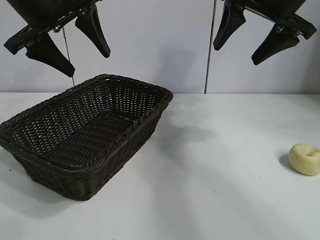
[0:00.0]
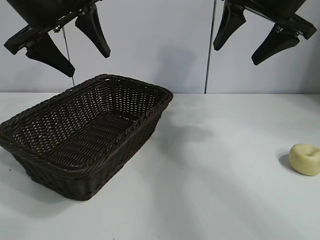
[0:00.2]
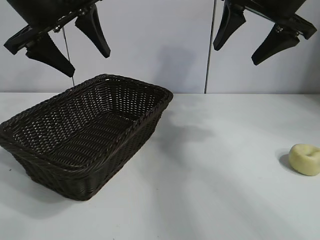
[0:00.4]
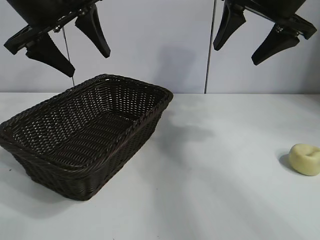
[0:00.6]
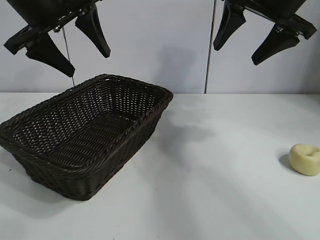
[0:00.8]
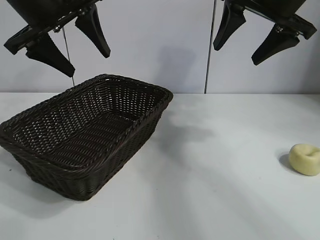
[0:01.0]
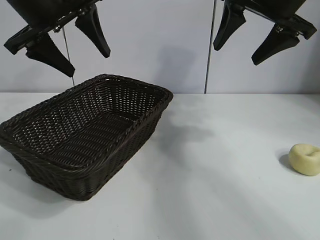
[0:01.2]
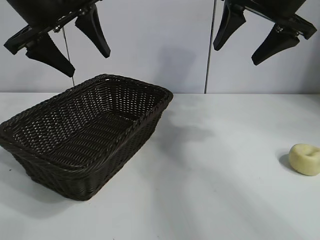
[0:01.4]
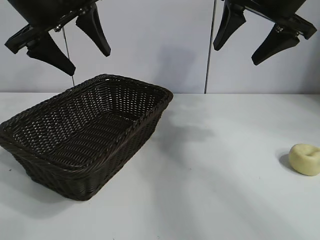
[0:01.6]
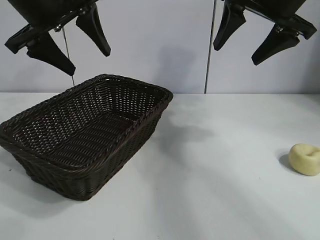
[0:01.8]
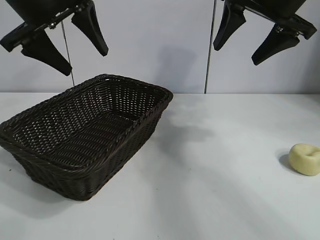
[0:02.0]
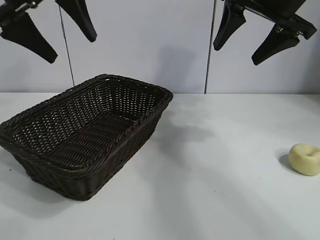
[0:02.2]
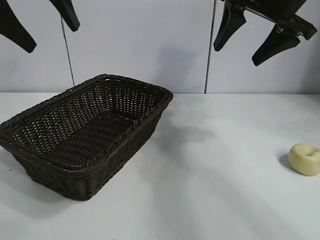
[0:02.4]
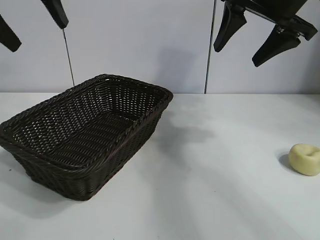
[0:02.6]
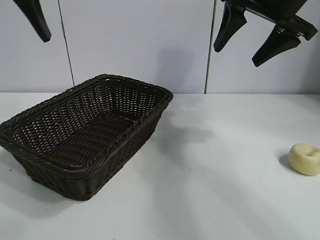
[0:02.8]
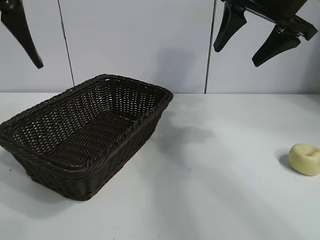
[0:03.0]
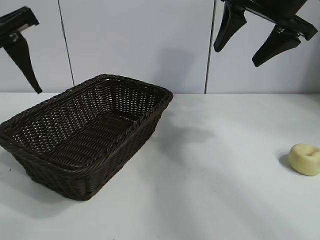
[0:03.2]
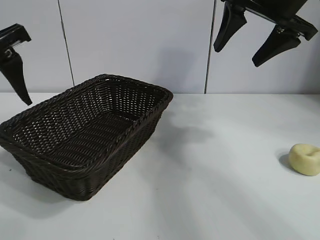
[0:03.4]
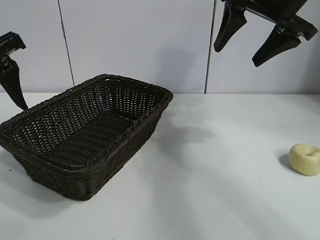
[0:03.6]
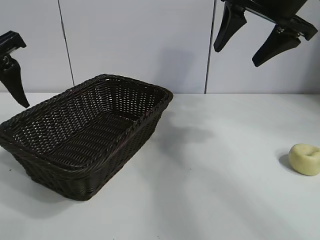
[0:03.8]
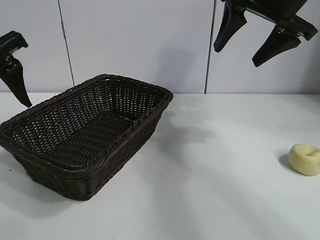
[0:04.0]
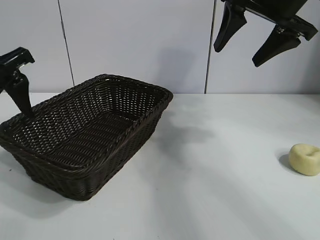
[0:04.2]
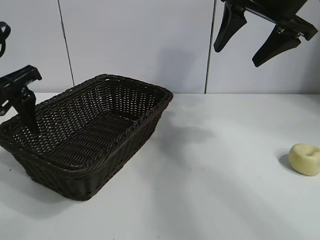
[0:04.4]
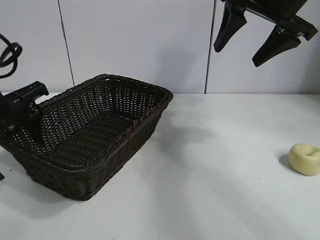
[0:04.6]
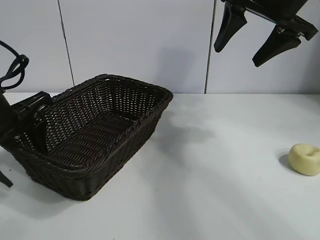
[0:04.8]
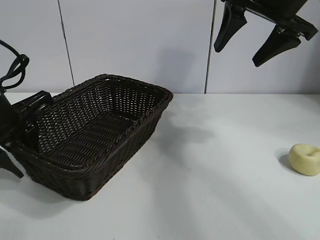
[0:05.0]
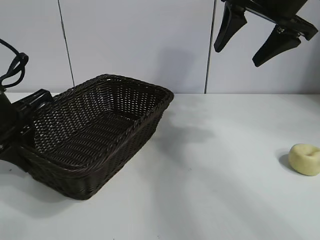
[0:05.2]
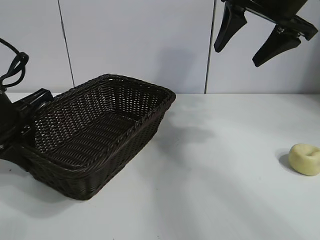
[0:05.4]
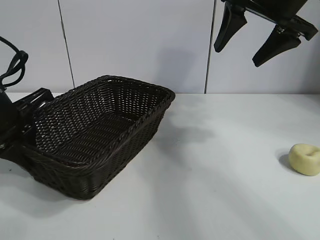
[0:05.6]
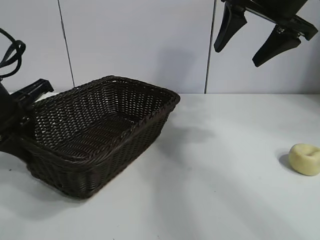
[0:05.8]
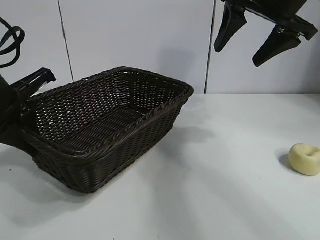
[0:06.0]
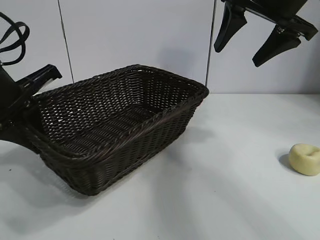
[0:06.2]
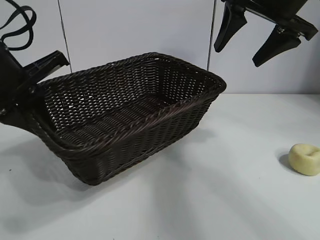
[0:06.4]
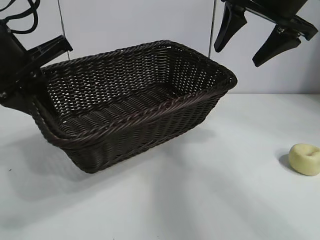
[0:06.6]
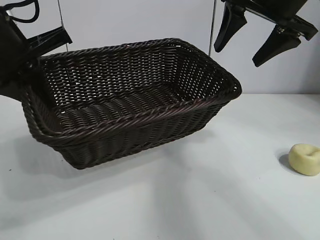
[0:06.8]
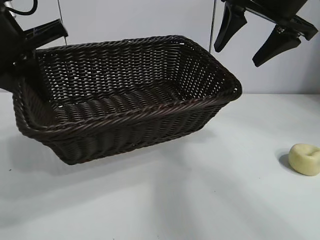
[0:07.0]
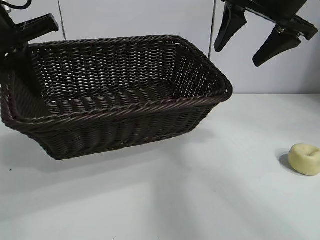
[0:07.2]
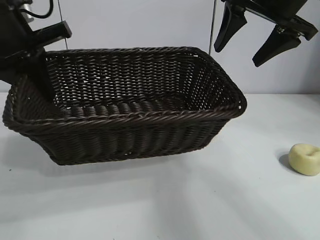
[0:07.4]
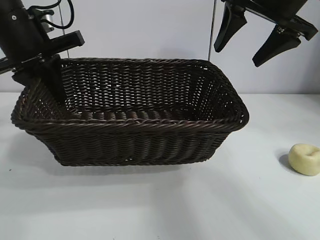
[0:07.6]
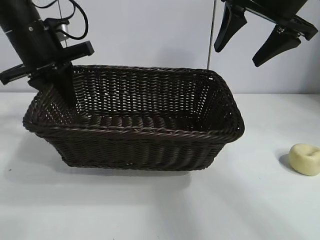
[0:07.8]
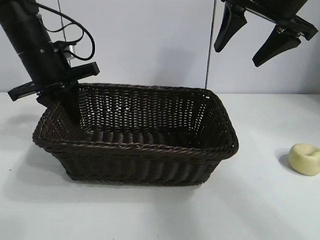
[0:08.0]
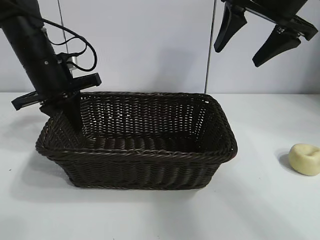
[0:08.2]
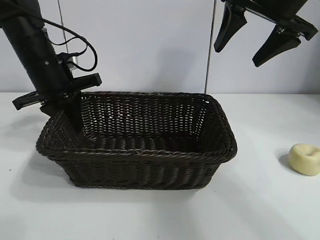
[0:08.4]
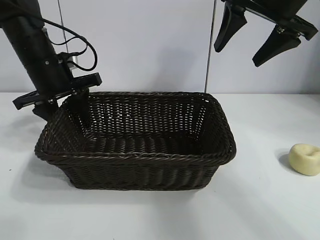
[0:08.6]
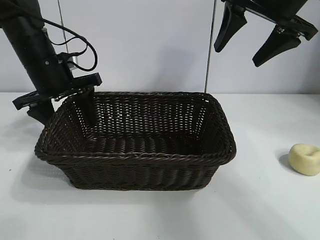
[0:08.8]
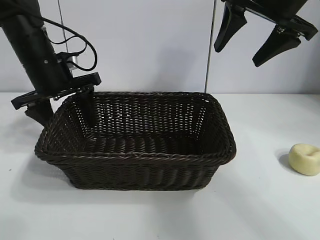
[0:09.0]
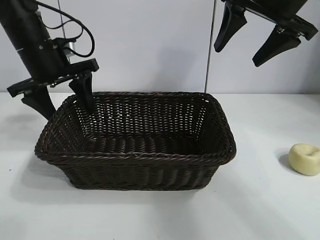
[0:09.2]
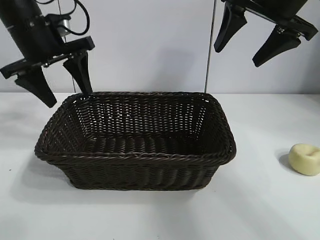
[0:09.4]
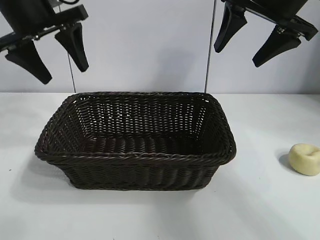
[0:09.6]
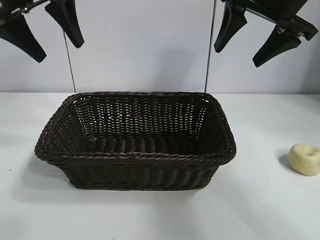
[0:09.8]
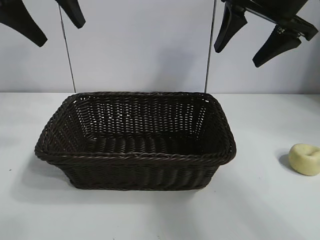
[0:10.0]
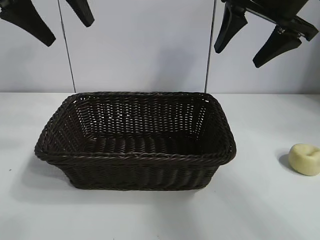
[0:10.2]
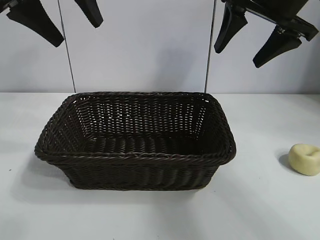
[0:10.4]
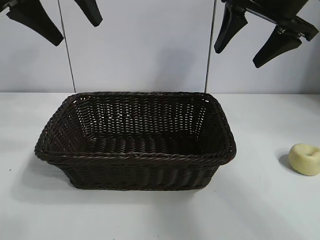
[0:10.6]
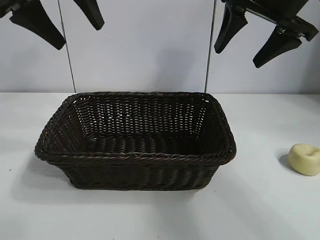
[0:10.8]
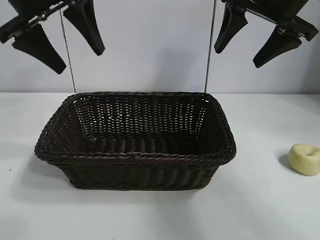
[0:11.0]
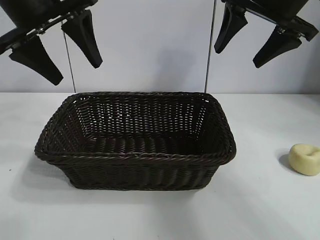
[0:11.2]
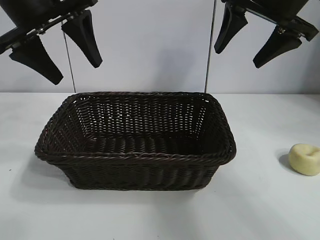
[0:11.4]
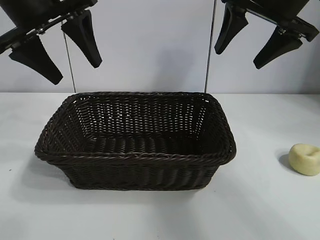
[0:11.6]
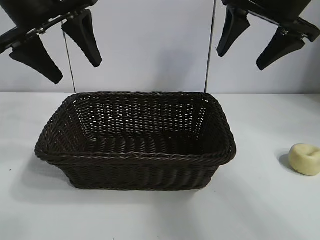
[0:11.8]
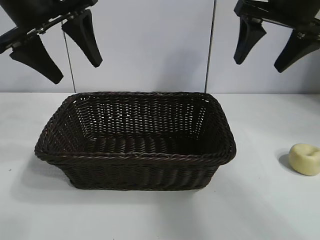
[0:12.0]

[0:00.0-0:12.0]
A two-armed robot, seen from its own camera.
Task of the whole recording: pick up the egg yolk pastry and put it into the basket.
Step, 0:01.6 to 0:05.2: Grasp the basket with left gripper.
Step, 0:05.4 to 0:08.8: Place the basket in the center of view with left gripper.

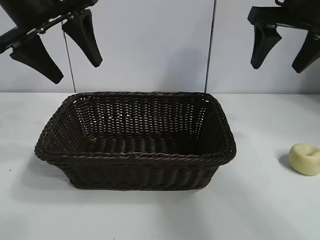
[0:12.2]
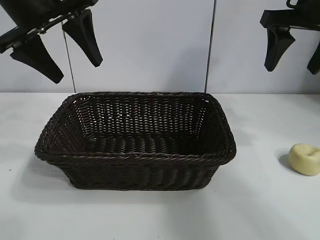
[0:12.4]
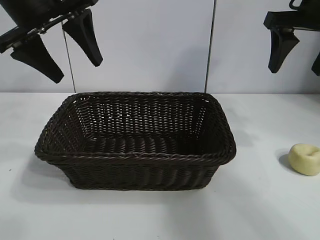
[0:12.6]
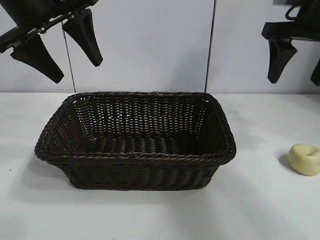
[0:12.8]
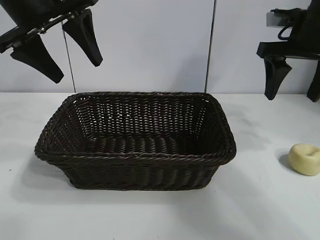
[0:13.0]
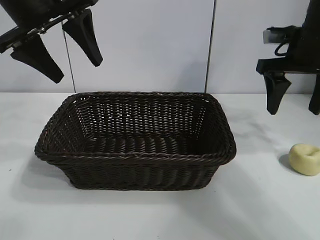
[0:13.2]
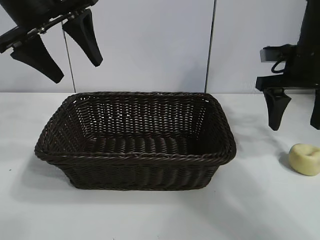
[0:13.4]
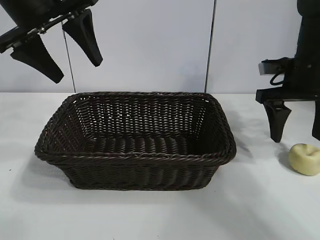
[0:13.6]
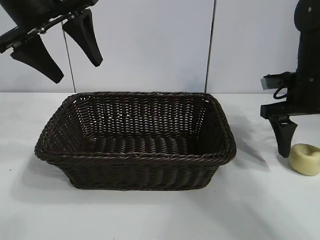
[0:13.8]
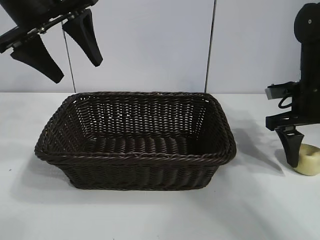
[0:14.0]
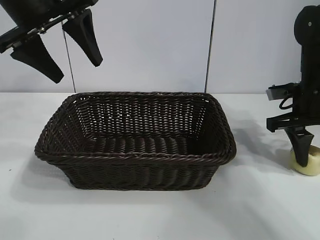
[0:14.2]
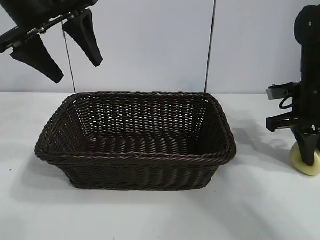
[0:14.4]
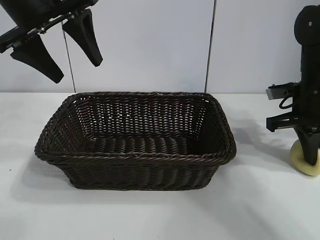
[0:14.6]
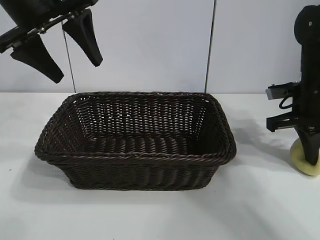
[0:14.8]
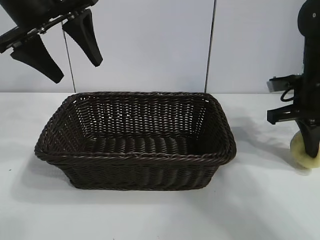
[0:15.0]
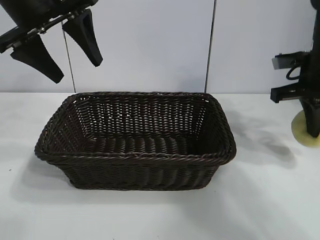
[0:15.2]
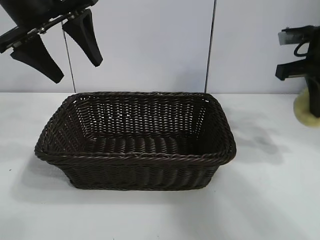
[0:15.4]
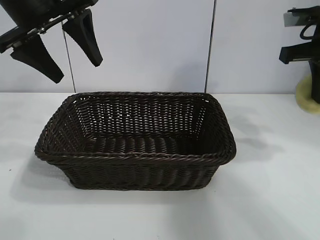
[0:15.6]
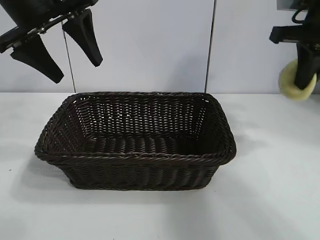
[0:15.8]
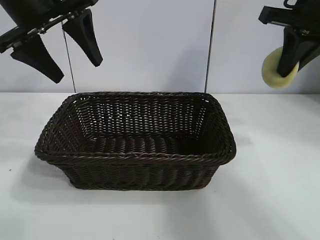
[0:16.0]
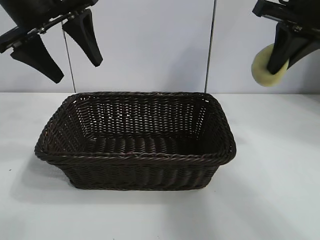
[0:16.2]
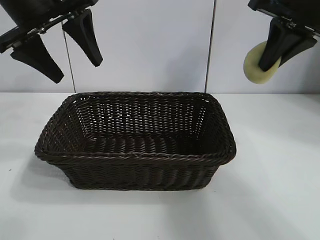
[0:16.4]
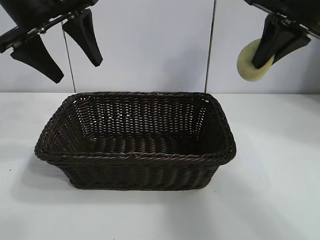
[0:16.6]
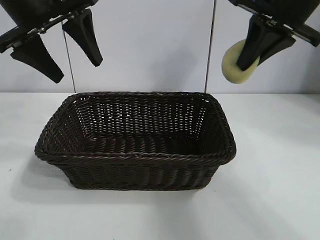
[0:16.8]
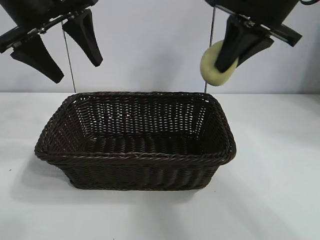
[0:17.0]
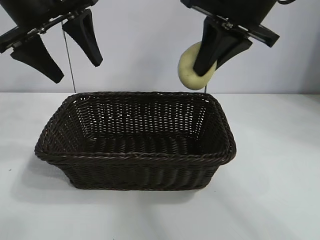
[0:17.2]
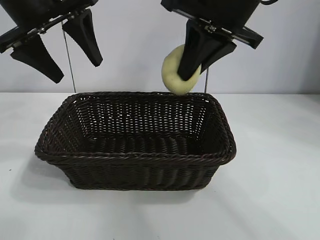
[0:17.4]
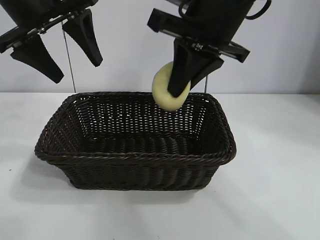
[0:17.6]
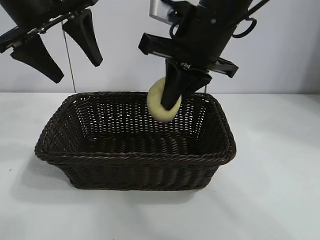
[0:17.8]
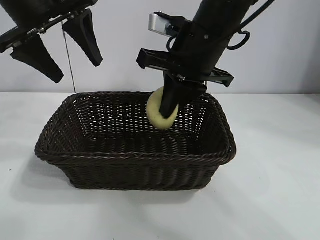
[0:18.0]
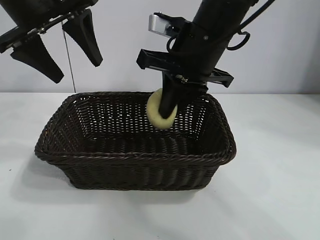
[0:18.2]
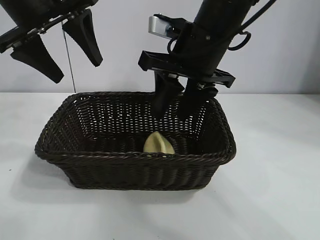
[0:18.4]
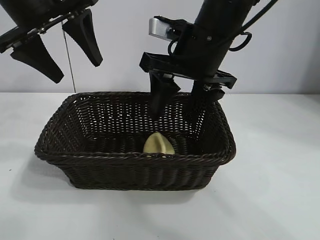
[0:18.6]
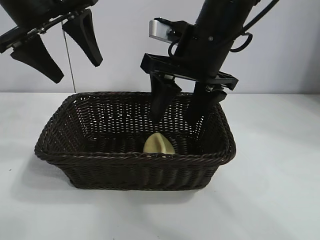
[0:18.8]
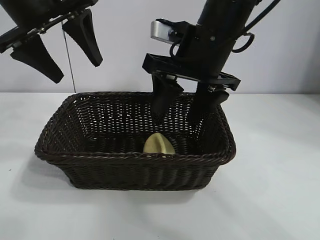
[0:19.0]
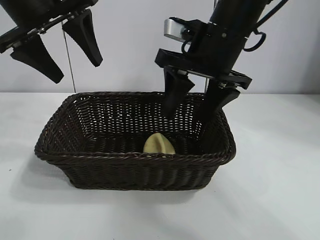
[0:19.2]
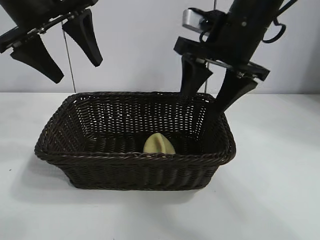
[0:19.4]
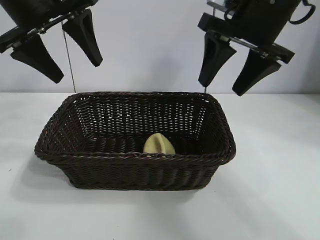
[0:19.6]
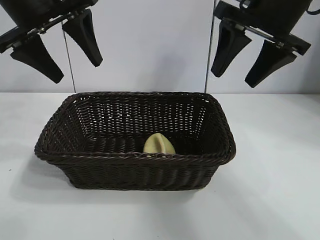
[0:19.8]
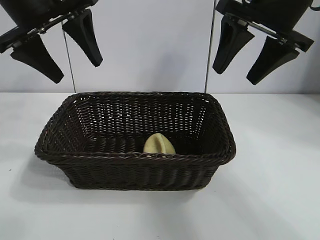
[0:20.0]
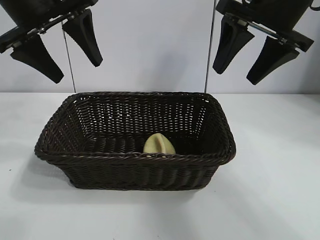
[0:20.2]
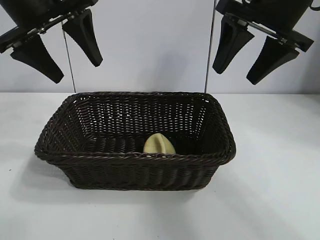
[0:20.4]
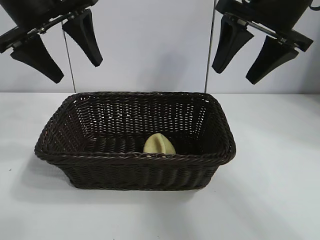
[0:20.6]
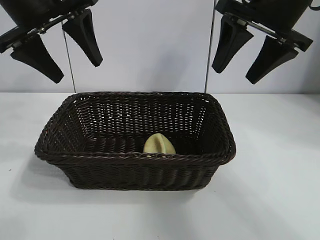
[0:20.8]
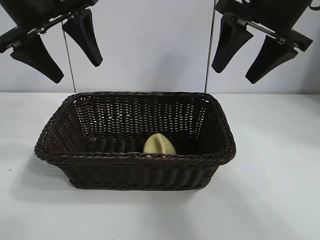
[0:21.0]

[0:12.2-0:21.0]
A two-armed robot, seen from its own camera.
Task of the whole recording: pick up the egg yolk pastry and put it into the basket.
Step, 0:12.2 to 0:14.8: Grasp egg yolk pastry with right gripper.
Step, 0:15.0 to 0:18.6: Place the egg yolk pastry in the basket with right gripper.

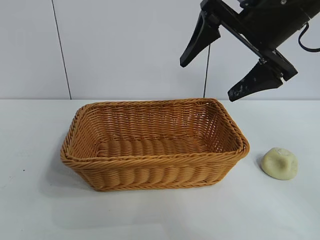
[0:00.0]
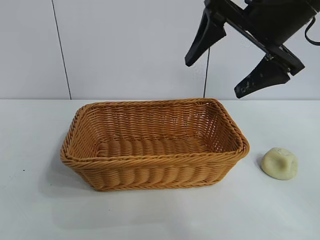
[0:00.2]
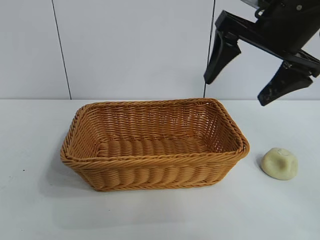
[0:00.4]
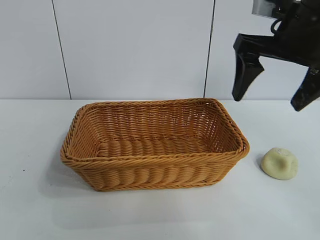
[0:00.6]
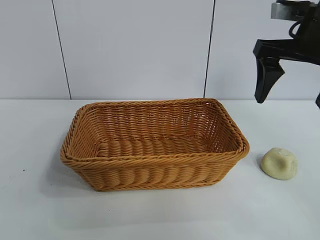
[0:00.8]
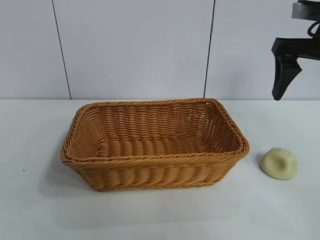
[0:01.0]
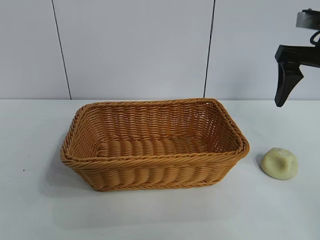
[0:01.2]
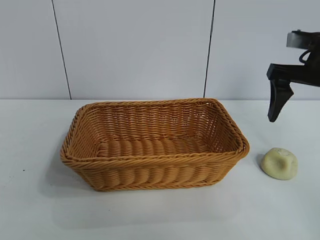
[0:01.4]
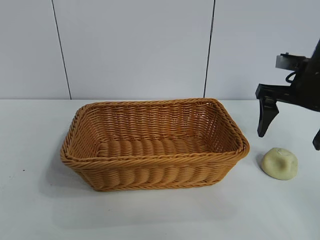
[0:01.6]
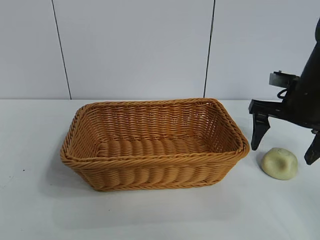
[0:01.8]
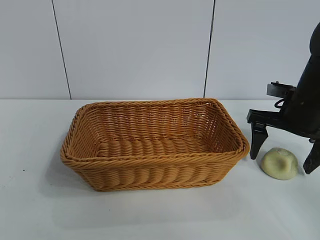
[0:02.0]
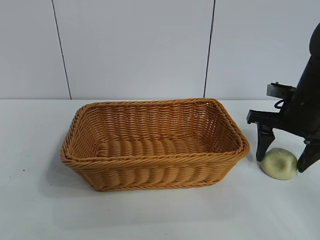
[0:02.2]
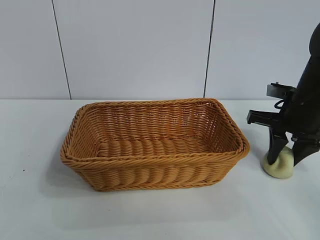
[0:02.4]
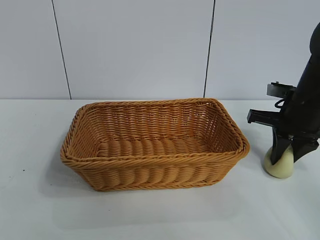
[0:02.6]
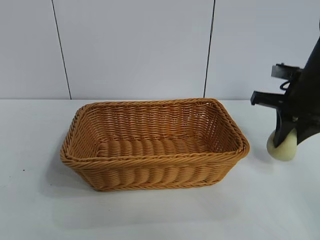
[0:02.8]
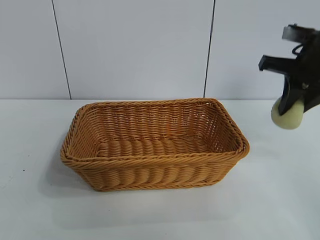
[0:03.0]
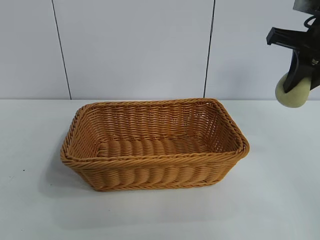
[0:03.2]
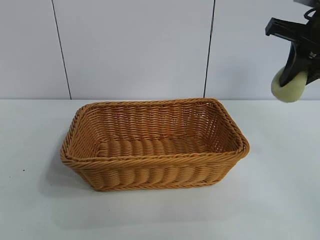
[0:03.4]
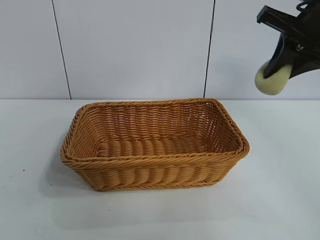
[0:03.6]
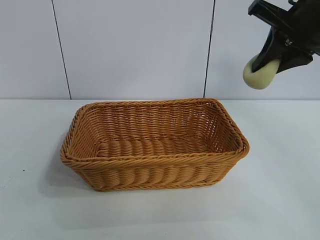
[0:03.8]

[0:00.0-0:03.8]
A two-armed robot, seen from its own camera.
Task of the whole recording: pick up the egg yolk pastry and put it into the basket.
Step, 0:00.0 to 0:02.4: Grasp egg yolk pastry with right gripper.
